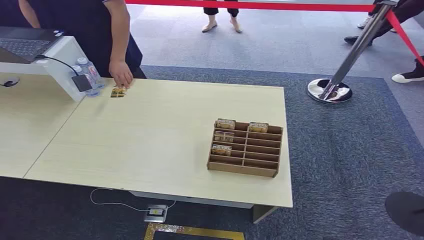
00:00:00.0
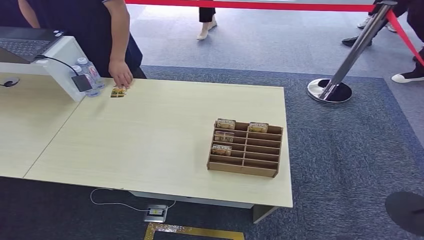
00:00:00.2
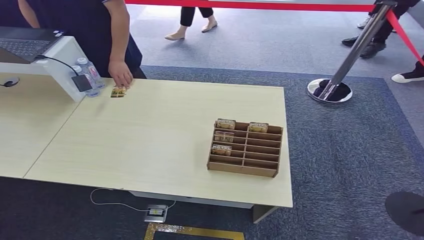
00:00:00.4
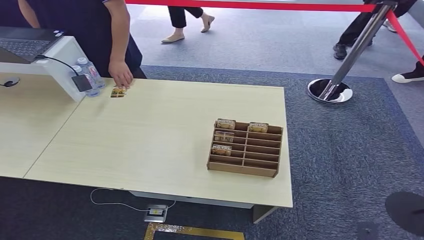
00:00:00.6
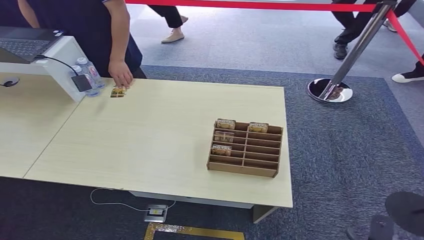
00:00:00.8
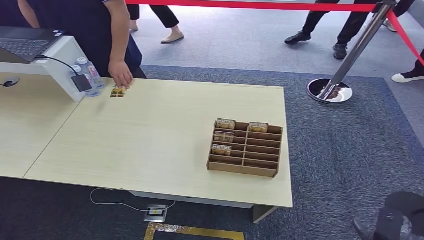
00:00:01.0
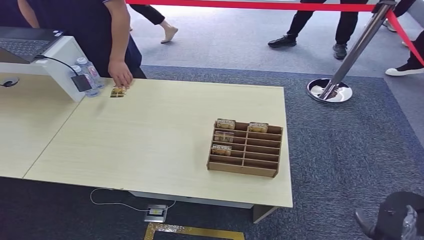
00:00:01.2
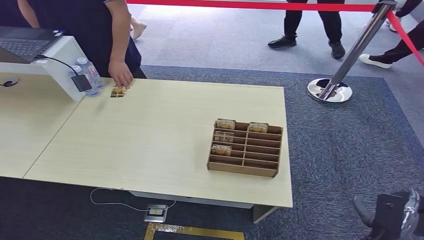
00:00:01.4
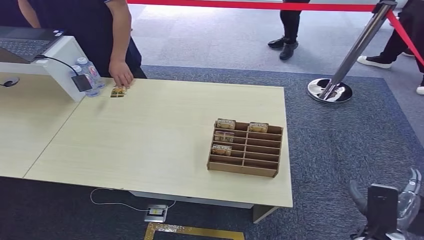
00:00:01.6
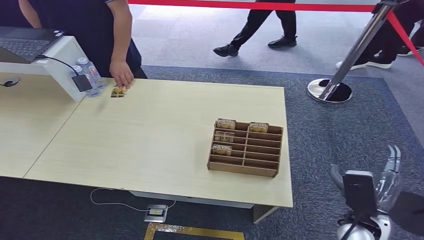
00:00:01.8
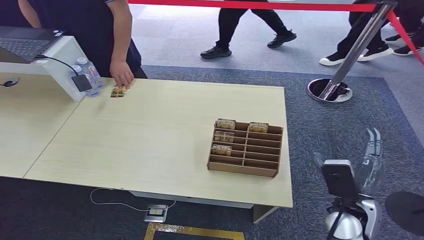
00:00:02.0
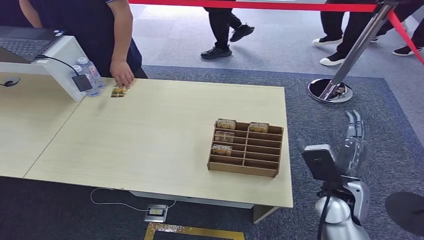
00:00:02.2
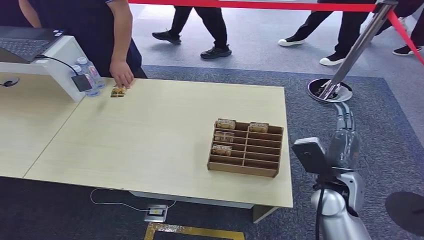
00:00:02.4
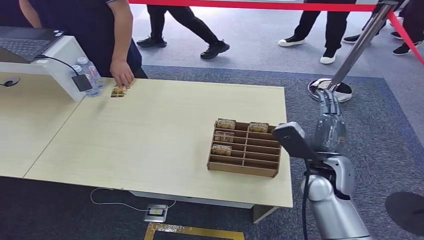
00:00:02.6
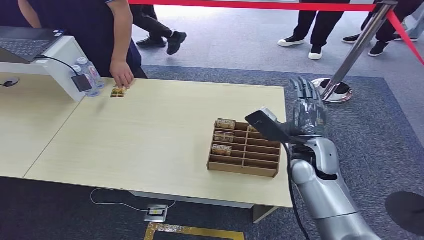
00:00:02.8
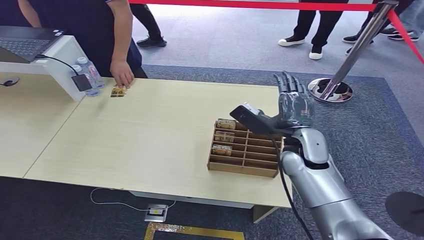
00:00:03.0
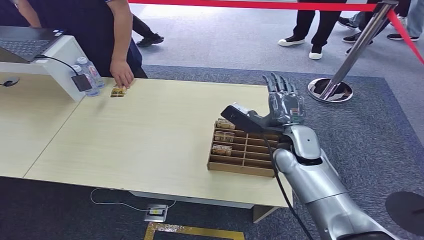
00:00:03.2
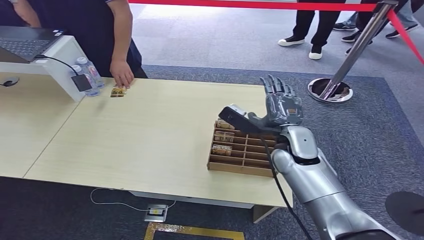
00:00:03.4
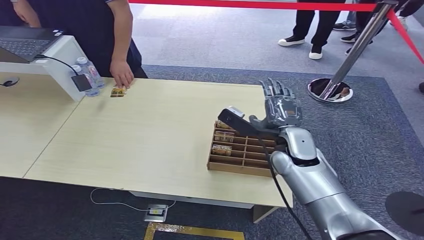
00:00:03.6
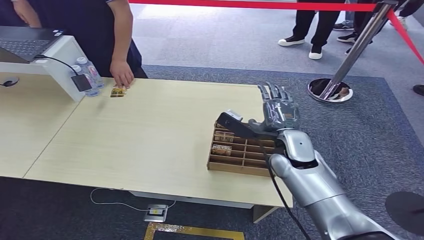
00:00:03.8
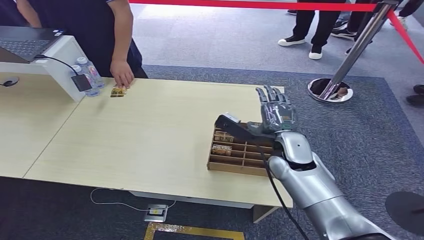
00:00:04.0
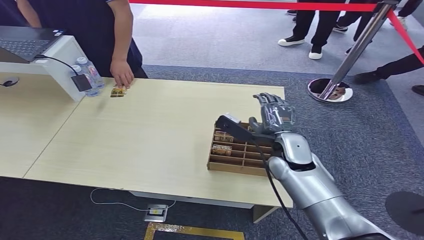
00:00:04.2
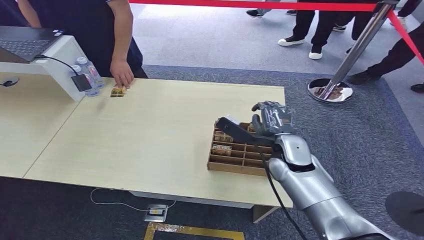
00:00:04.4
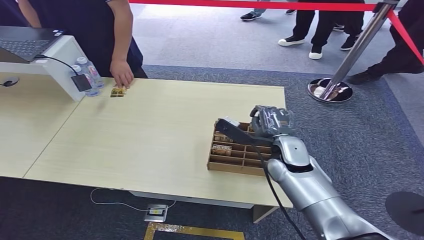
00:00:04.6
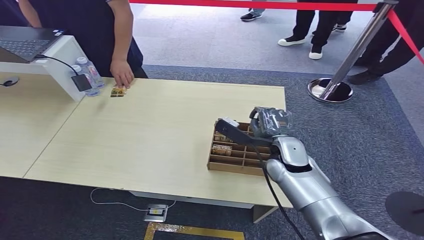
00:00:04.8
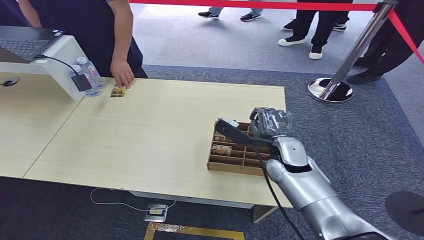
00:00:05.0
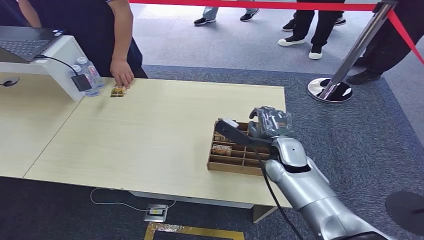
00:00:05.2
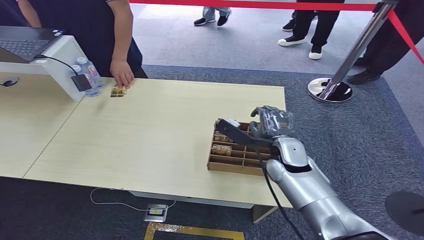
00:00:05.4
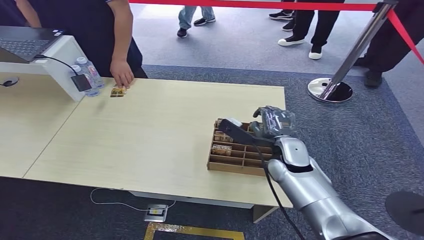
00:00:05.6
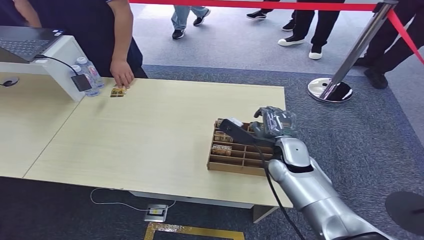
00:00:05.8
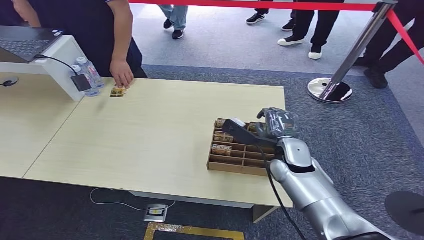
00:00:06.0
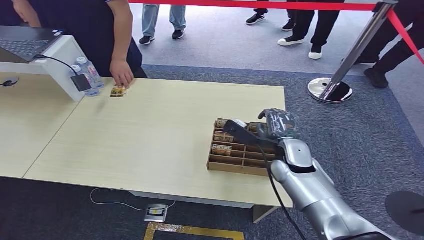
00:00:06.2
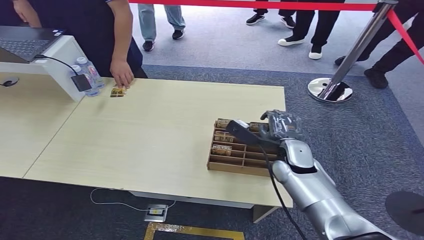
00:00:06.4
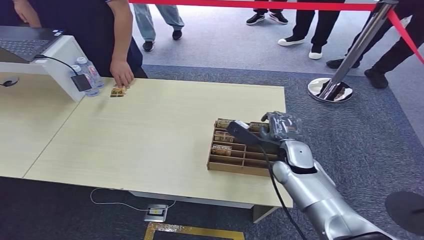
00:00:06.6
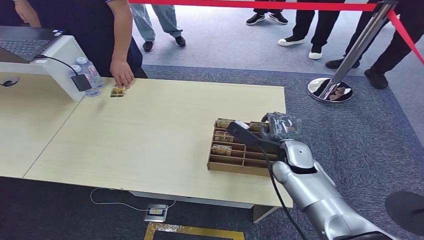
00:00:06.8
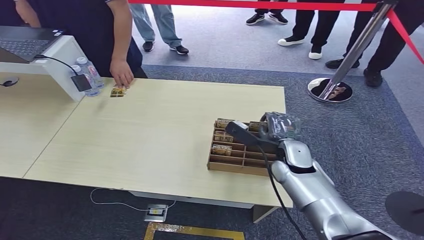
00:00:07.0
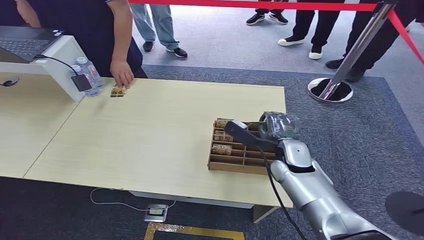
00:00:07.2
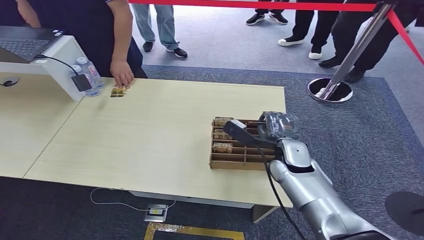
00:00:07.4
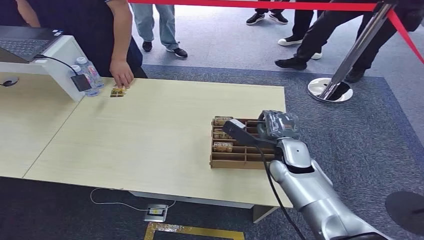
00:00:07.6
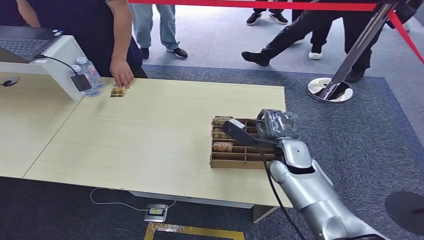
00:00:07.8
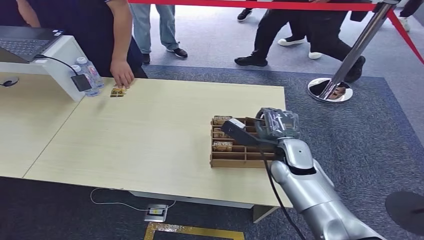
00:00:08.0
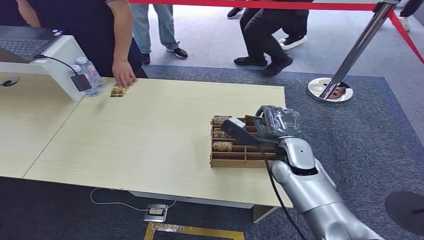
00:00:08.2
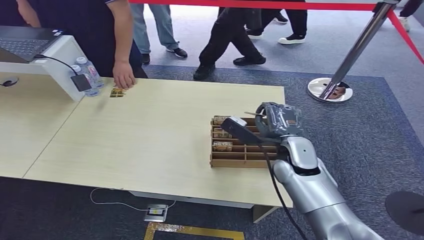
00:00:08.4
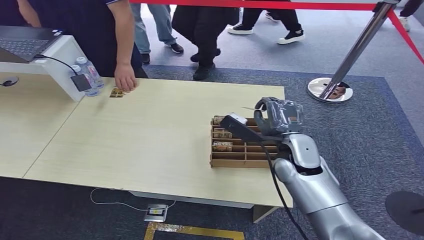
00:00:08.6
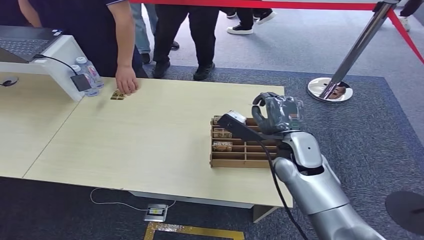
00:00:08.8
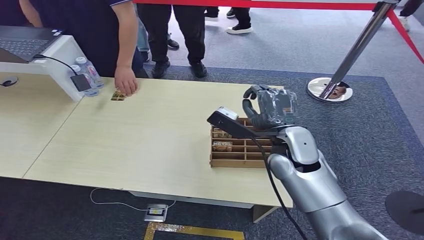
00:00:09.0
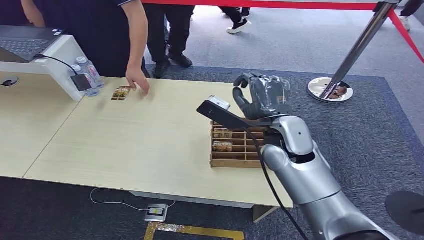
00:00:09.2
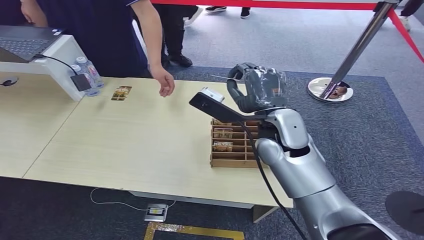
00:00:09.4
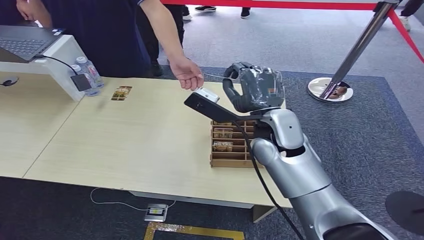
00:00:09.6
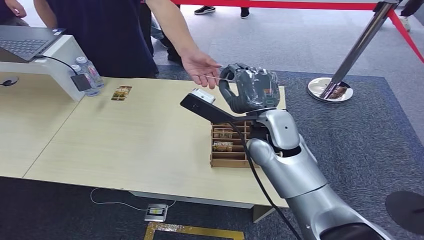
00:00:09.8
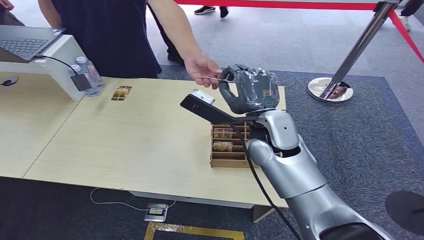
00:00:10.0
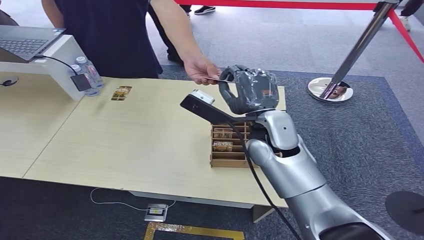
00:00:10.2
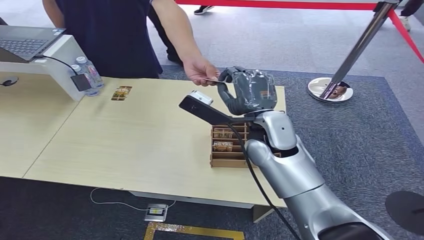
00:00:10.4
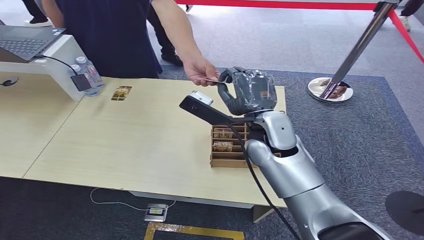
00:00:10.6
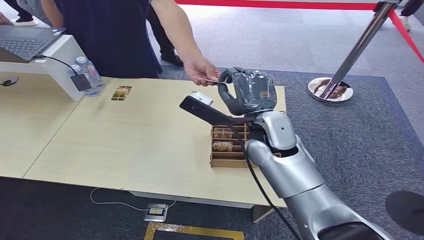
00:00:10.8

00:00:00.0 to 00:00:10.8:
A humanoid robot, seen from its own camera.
Step, 00:00:00.0 to 00:00:08.4: Pick up the room card from the card holder.
Step, 00:00:08.6 to 00:00:10.8: Hand the room card to the target.
00:00:01.6 to 00:00:03.0: There are only small adjustments of the hands.
00:00:03.0 to 00:00:04.6: The hands stay close to where they were, moving slightly.
00:00:04.6 to 00:00:06.2: The hands stay close to where they were, moving slightly.
00:00:06.2 to 00:00:07.8: Both hands stay put.
